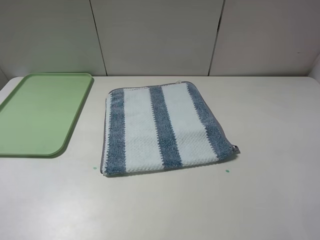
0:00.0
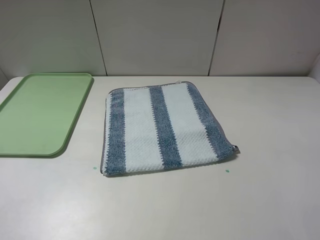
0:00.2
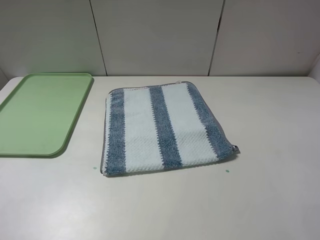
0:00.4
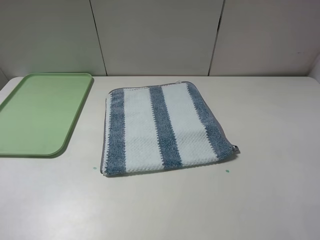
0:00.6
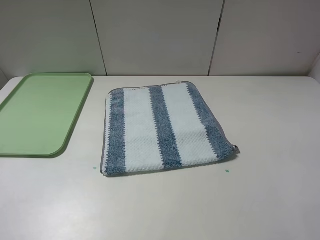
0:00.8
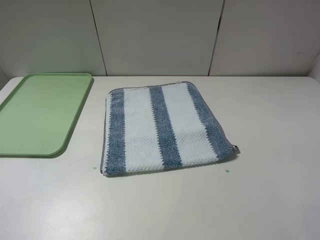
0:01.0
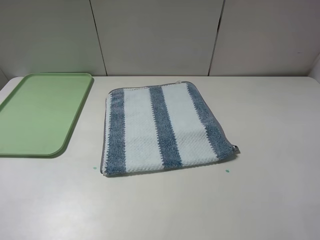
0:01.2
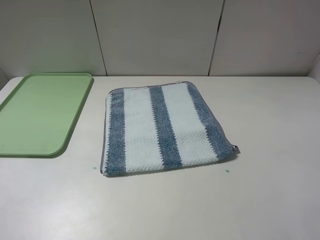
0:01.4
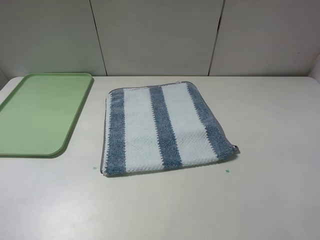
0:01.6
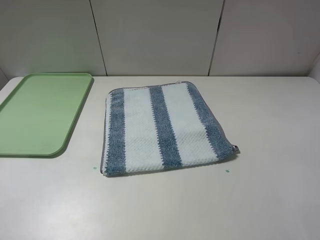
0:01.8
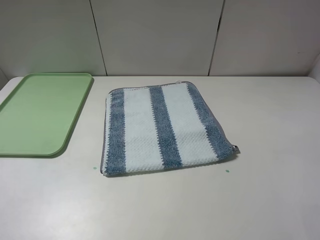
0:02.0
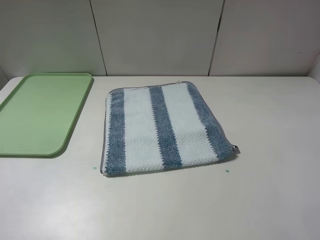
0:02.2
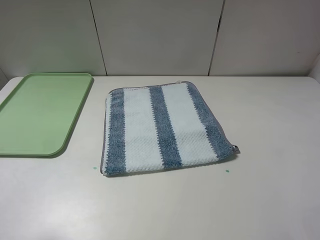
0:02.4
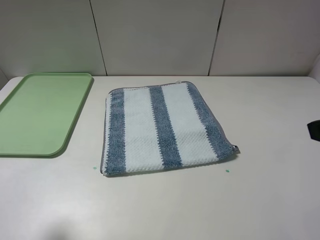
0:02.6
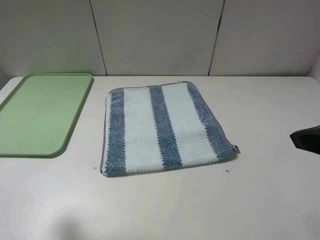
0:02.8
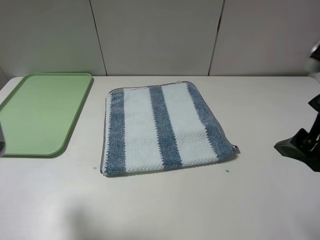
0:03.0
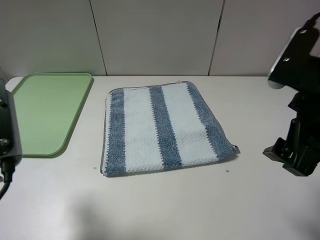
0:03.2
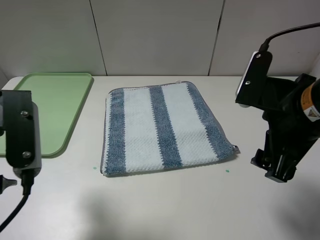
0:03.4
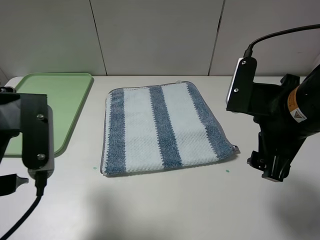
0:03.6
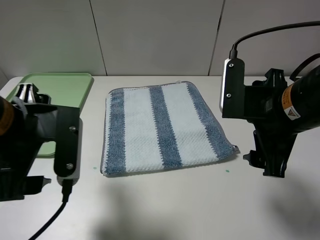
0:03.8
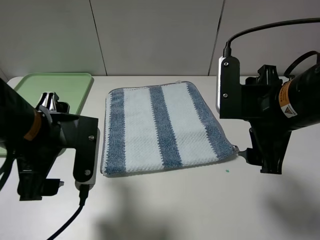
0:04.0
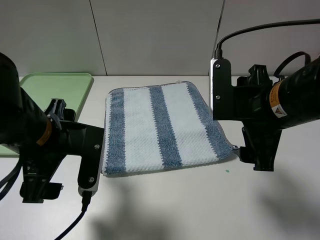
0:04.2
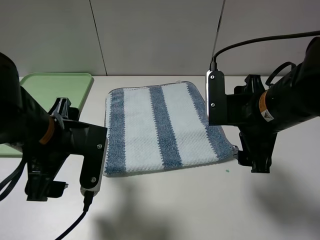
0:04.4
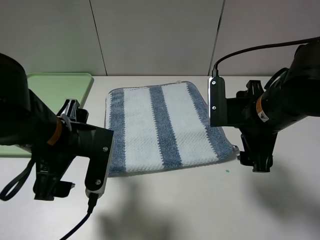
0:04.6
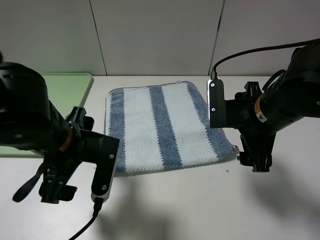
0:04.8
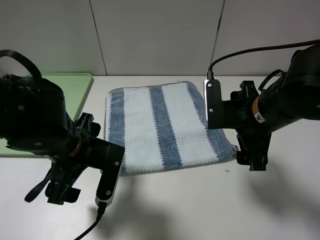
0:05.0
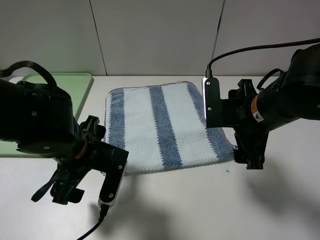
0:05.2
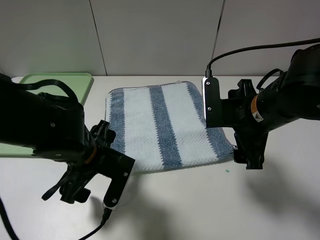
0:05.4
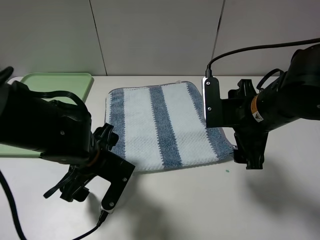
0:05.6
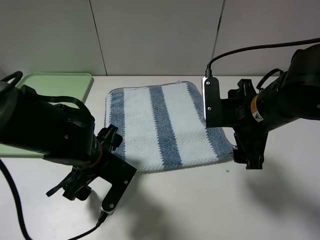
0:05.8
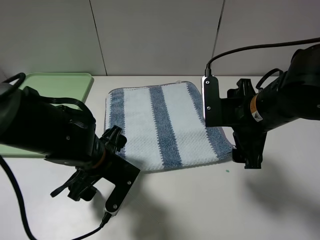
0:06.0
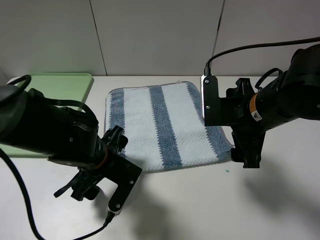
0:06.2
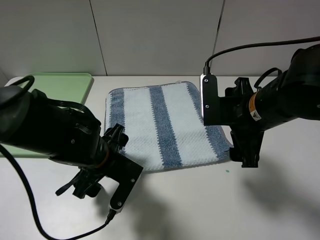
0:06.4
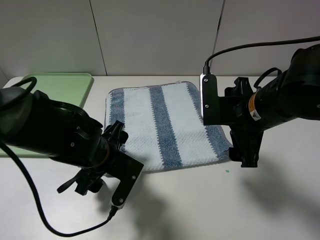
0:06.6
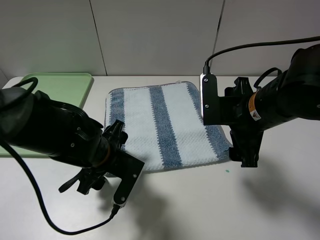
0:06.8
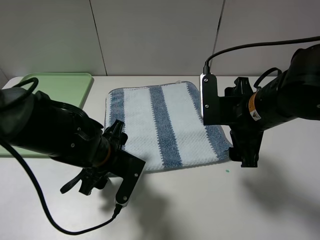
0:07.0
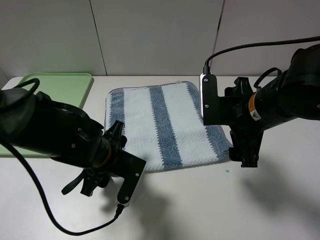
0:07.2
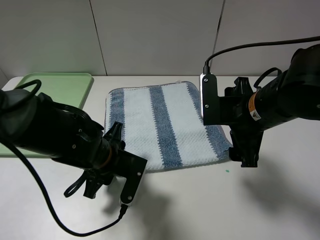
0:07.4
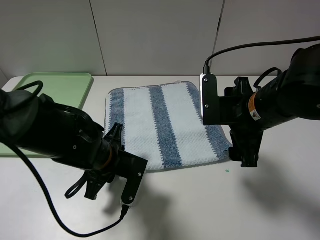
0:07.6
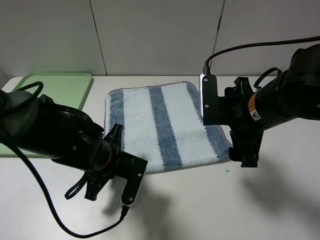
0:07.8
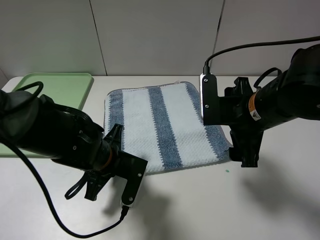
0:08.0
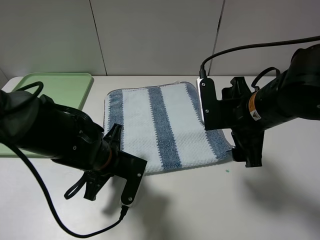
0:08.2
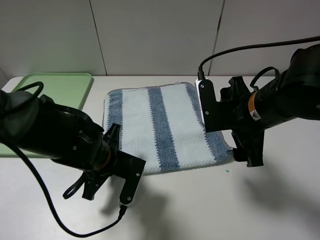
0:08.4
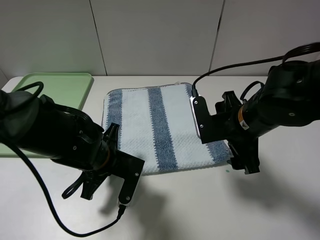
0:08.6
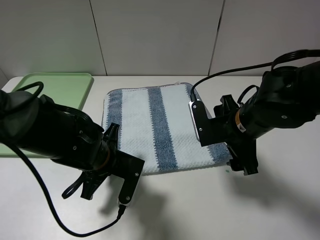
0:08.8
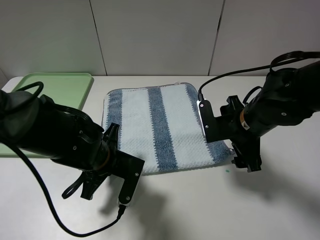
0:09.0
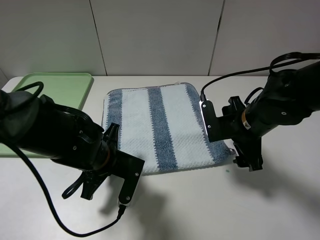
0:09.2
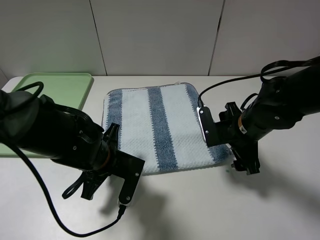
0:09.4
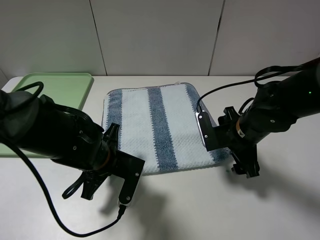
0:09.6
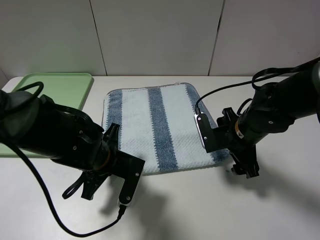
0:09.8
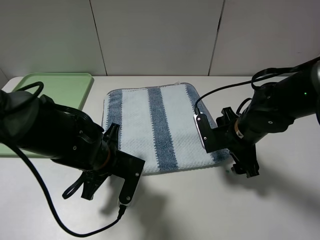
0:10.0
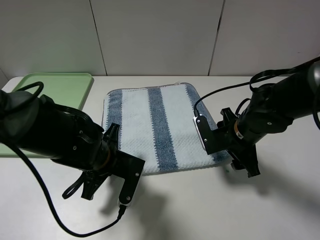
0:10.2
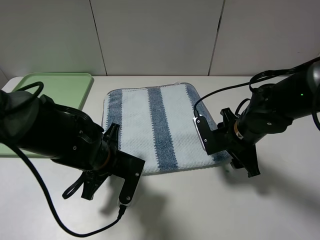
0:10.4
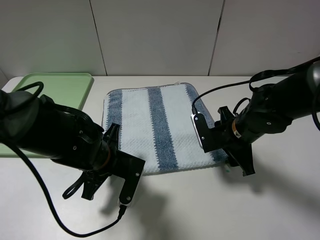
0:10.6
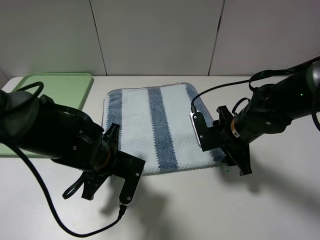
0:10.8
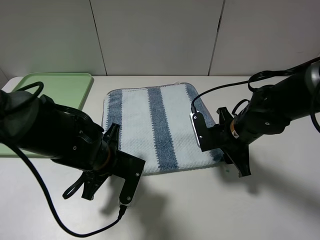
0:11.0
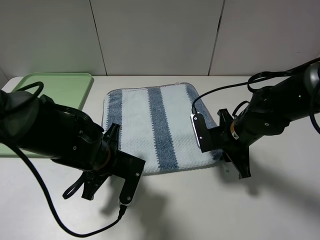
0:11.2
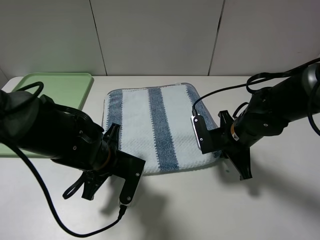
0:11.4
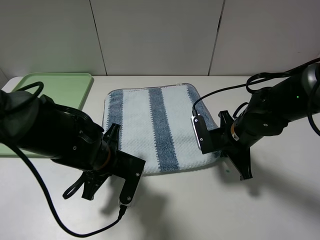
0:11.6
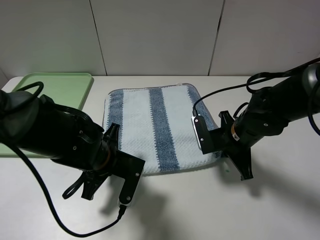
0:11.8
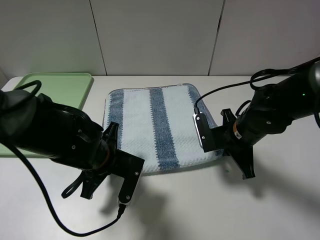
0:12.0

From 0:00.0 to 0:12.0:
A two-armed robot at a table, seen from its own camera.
Step, from 0:00.0 to 0:08.4: Grasp the blue white towel with the left gripper.
From 0:00.0 to 0:01.6: The two grippers keep their place.
From 0:01.6 to 0:03.0: The left gripper moves forward and to the right, approximately 15 cm. The right gripper shifts roughly 15 cm forward and to the left.
From 0:03.0 to 0:04.4: The right gripper travels downward, forward and to the left by about 10 cm, while the left gripper shifts about 15 cm to the right and downward.
From 0:04.4 to 0:06.0: The left gripper is displaced downward by some 10 cm.
From 0:06.0 to 0:07.6: The left gripper closes up.
From 0:07.6 to 0:09.0: The left gripper closes its fingers. Meanwhile the right gripper goes some 5 cm downward.
From 0:09.0 to 0:10.4: The grippers stay close to where they were, moving slightly.
From 0:10.4 to 0:12.0: The right gripper closes.

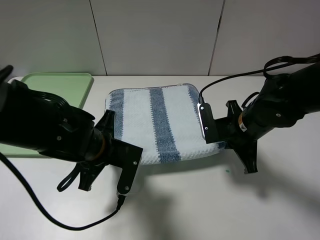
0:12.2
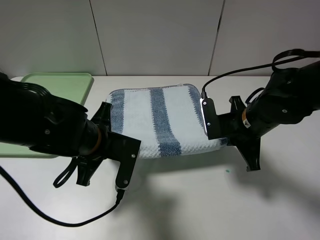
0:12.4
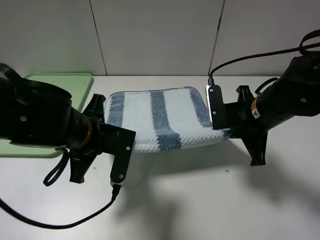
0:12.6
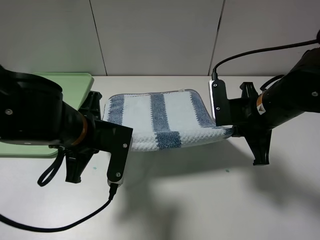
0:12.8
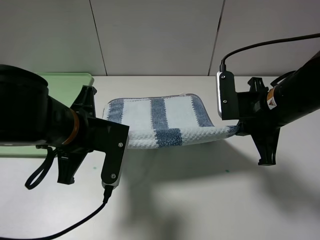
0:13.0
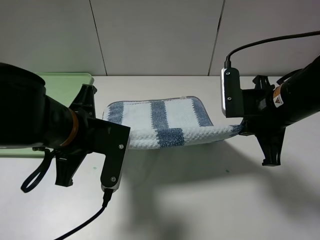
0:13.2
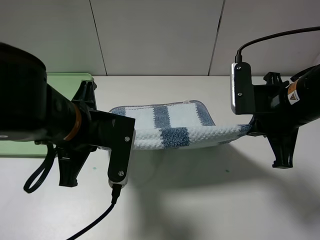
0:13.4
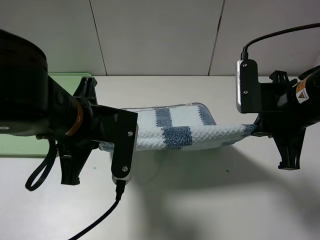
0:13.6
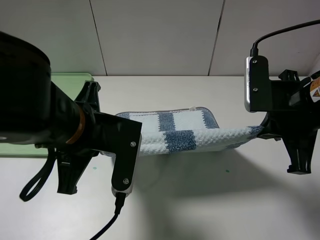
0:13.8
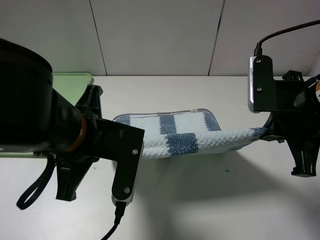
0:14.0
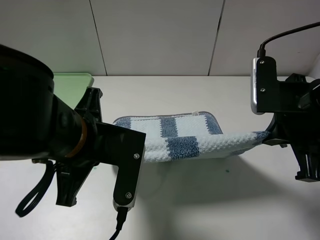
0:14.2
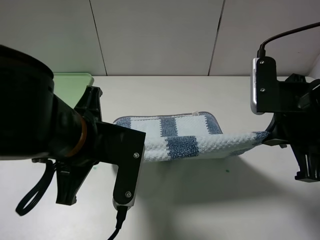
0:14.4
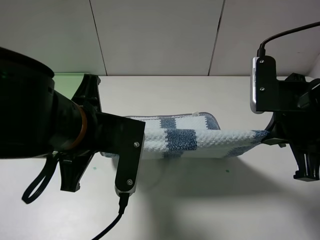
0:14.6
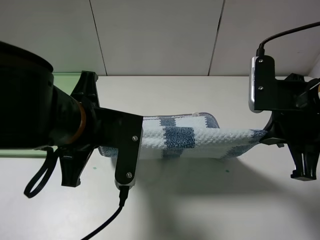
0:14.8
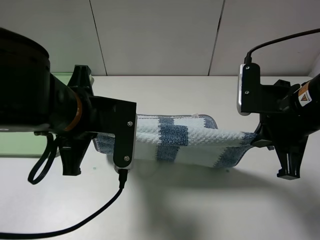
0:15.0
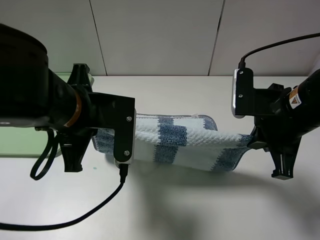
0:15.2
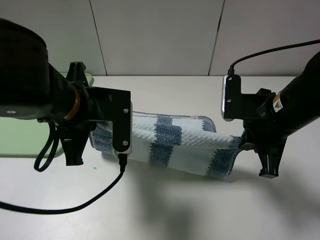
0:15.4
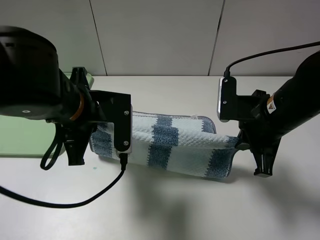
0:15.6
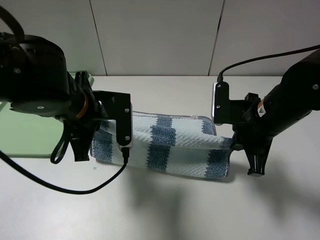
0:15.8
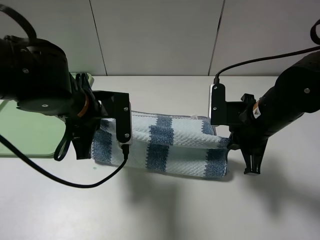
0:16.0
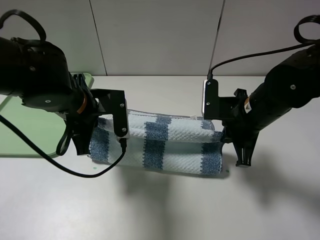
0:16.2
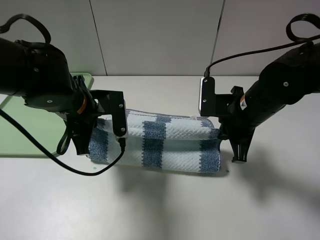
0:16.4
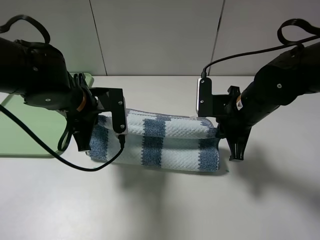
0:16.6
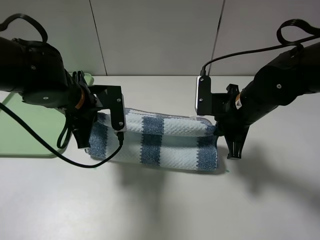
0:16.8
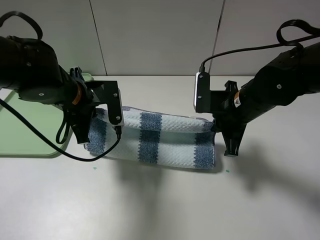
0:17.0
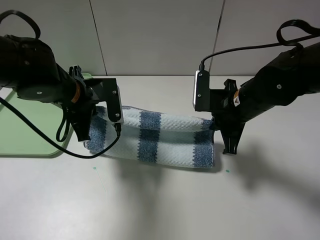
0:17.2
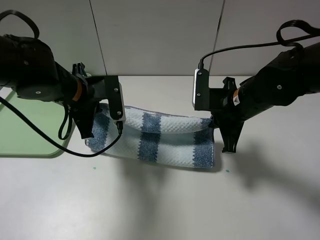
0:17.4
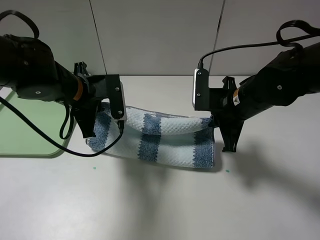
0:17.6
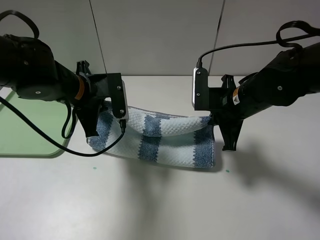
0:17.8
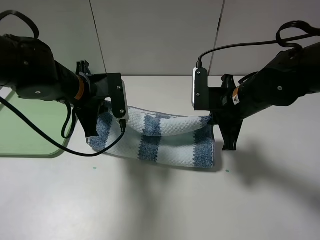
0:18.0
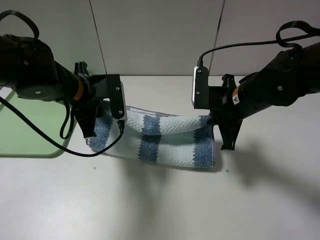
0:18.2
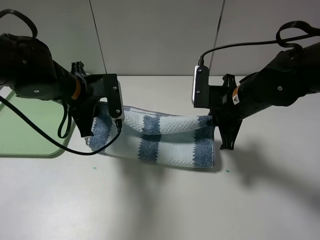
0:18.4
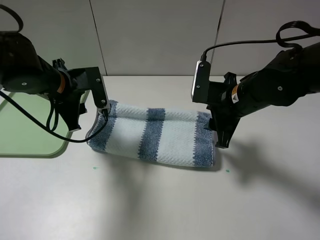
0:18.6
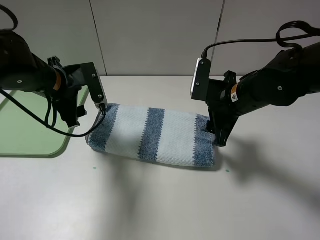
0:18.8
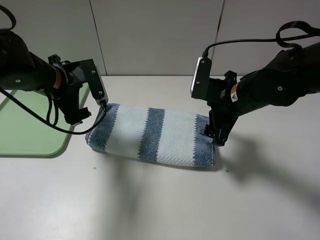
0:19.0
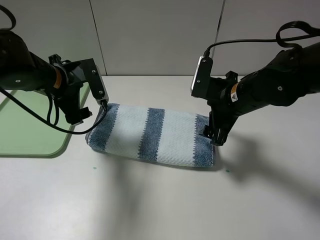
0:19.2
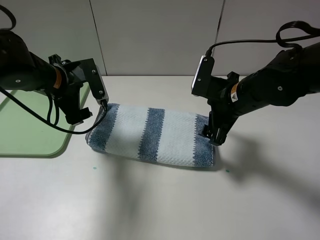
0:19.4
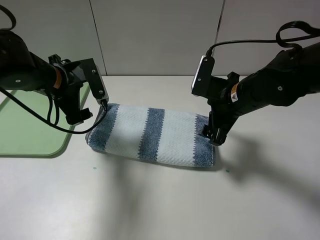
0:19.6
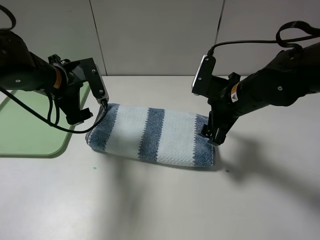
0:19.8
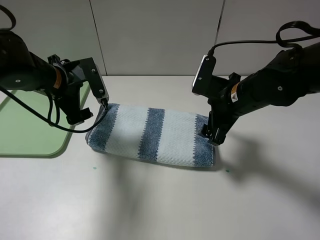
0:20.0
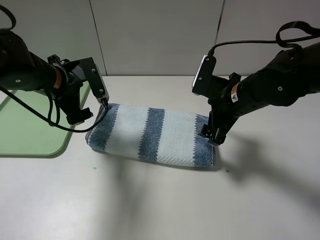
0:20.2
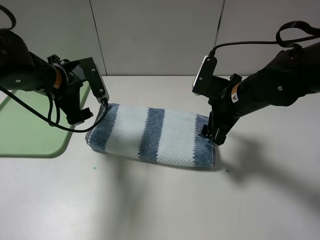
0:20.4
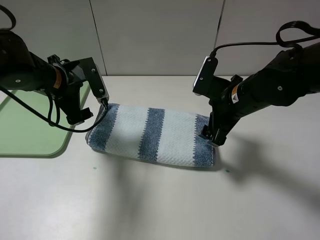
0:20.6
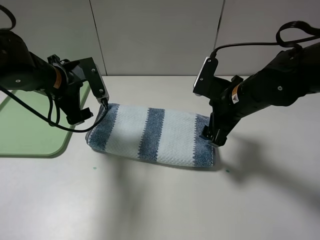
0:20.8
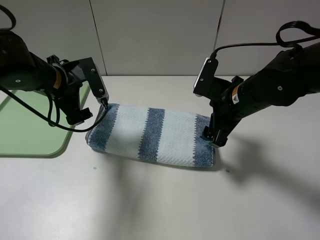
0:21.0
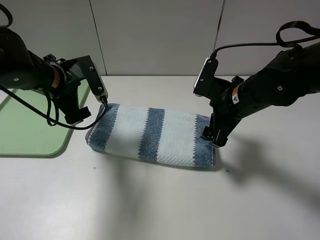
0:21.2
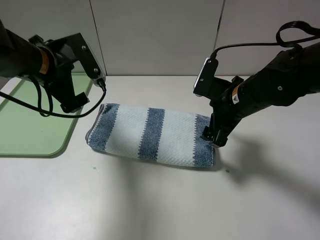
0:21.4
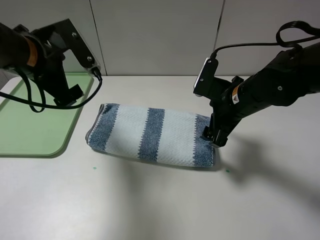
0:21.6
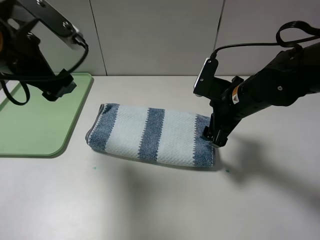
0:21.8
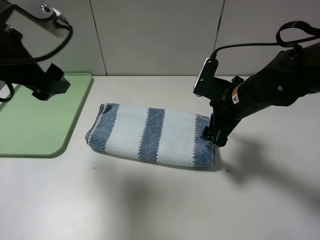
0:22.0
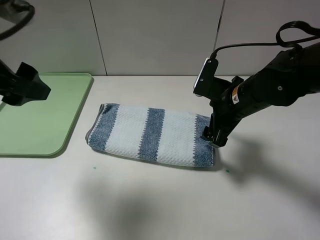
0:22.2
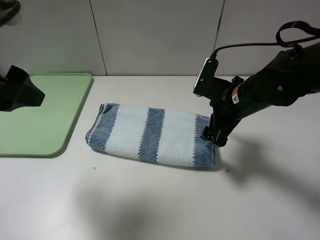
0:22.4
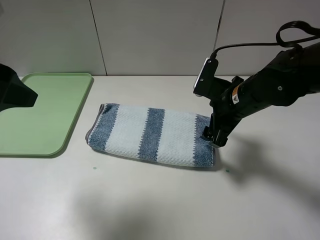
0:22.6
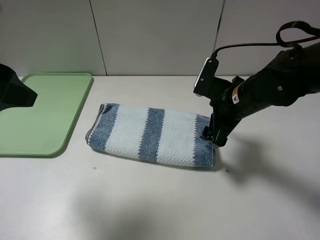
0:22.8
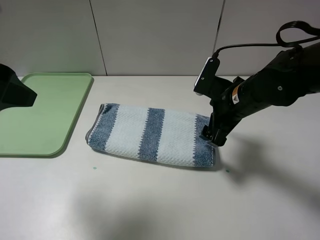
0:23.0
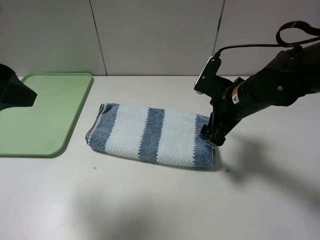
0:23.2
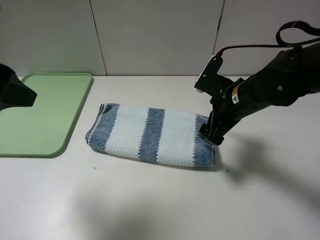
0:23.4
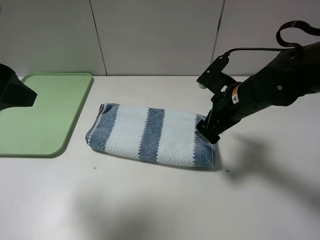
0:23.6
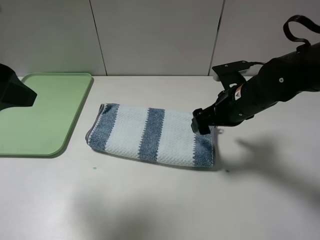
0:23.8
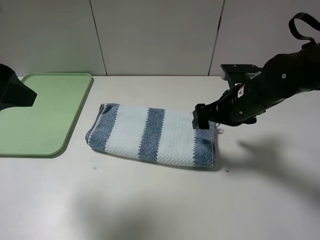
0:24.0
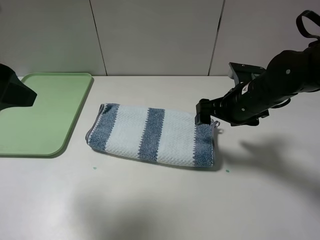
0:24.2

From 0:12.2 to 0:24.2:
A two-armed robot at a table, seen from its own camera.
Step, from 0:12.6 to 0:19.0: Fold the blue white towel upwards with the left gripper.
From 0:12.2 to 0:13.8: The right gripper moves upward and backward, some 15 cm; the left gripper heads upward, covering approximately 10 cm.
From 0:15.2 to 0:16.6: The two grippers go some 10 cm forward and downward.
From 0:16.6 to 0:18.2: The grippers make only small movements.
From 0:18.2 to 0:19.8: The left gripper shifts by some 5 cm, and opens up. The right gripper opens its fingers.
From 0:19.8 to 0:21.2: Both grippers stay about where they are.
From 0:21.2 to 0:22.6: The left gripper shifts approximately 20 cm backward and upward.
